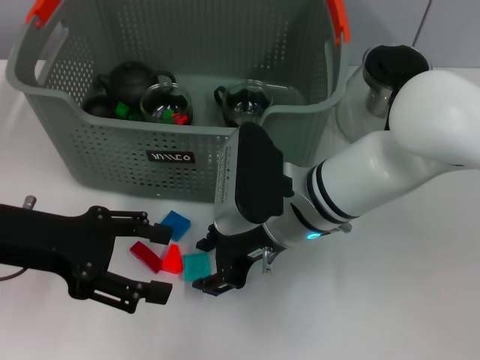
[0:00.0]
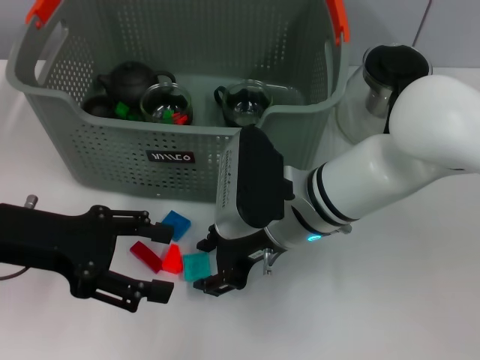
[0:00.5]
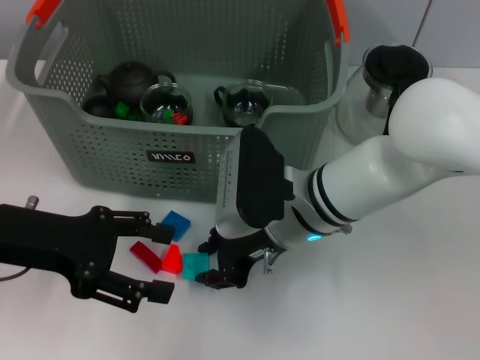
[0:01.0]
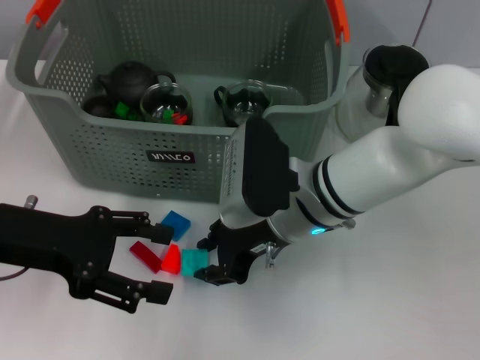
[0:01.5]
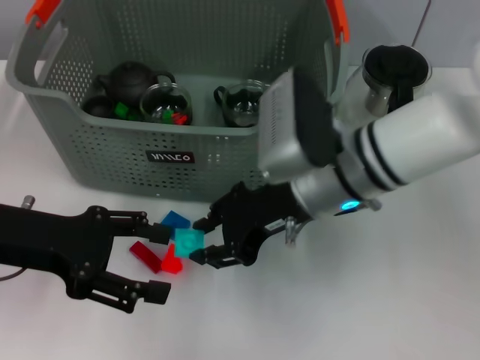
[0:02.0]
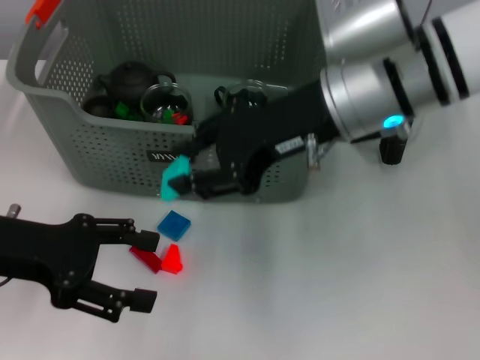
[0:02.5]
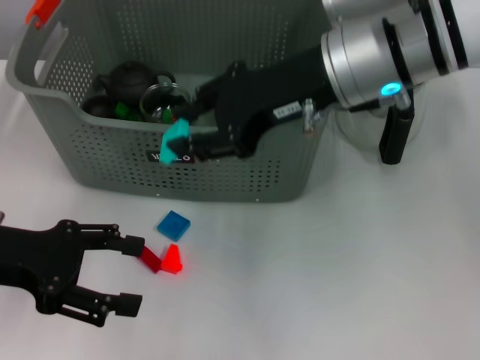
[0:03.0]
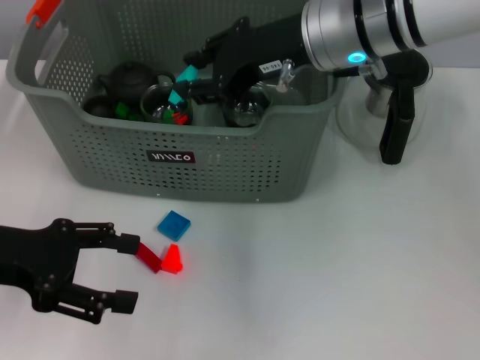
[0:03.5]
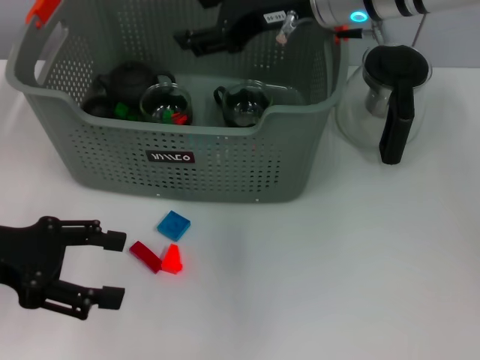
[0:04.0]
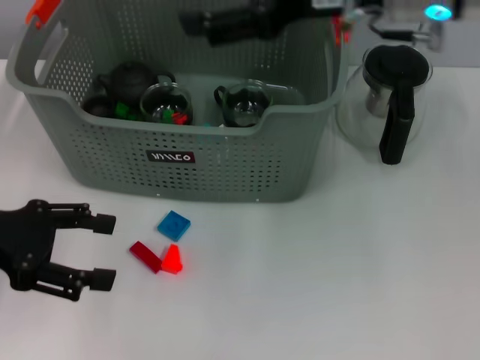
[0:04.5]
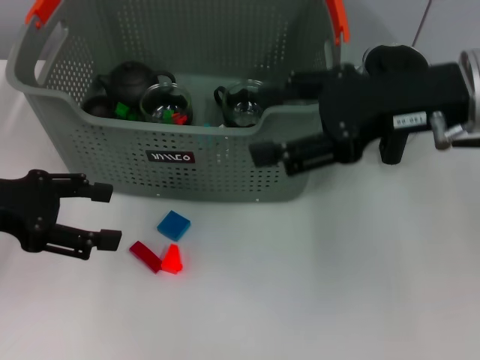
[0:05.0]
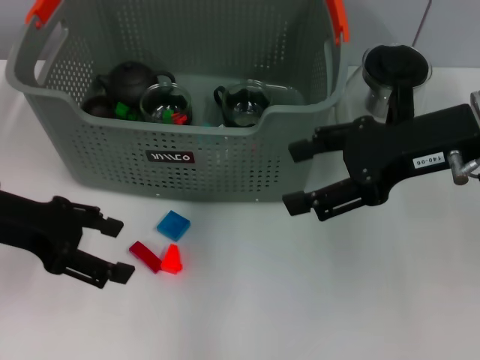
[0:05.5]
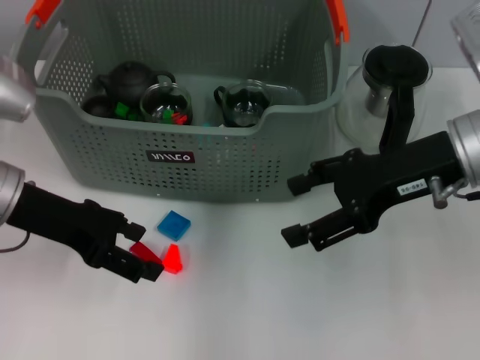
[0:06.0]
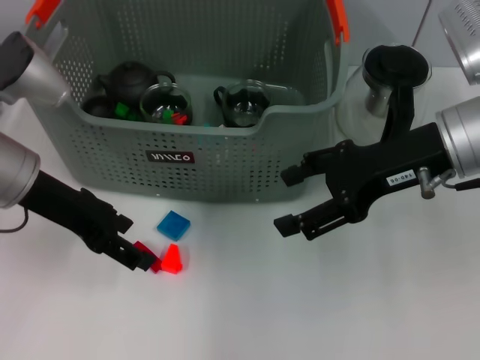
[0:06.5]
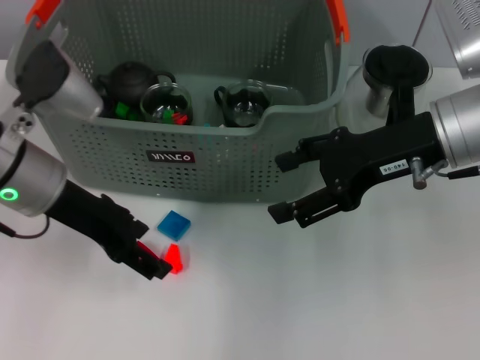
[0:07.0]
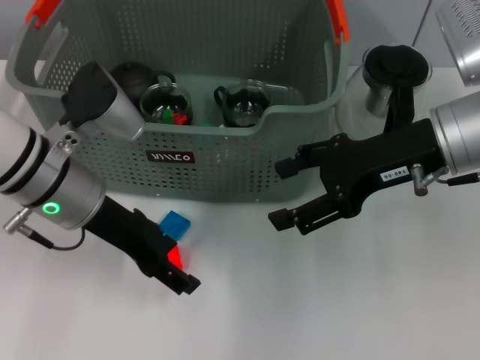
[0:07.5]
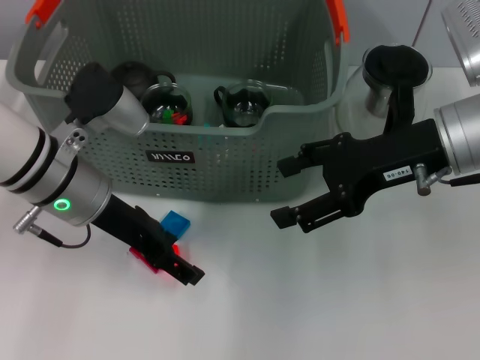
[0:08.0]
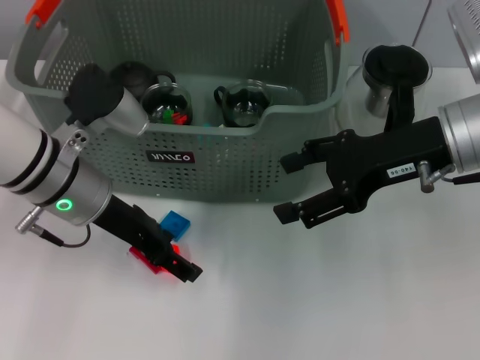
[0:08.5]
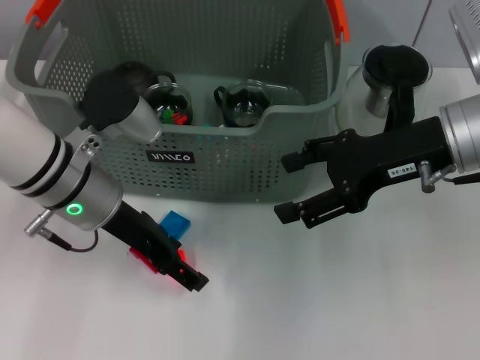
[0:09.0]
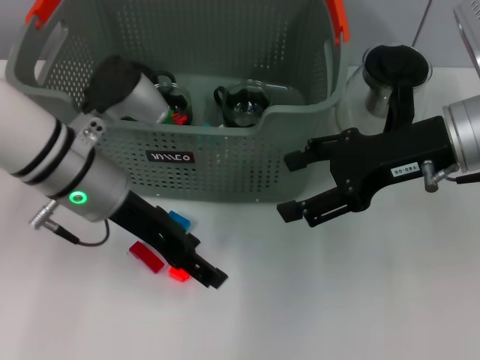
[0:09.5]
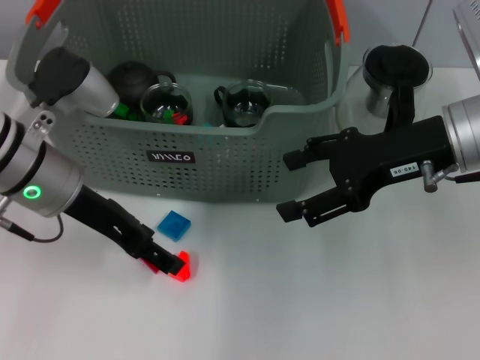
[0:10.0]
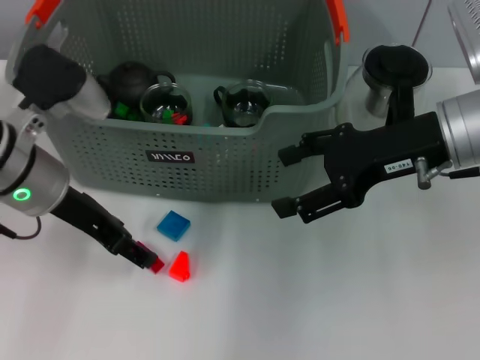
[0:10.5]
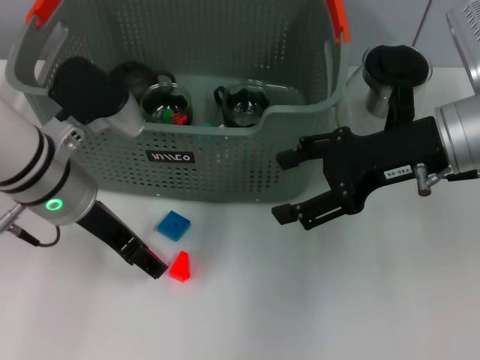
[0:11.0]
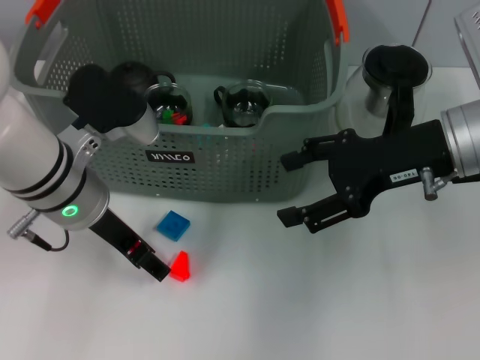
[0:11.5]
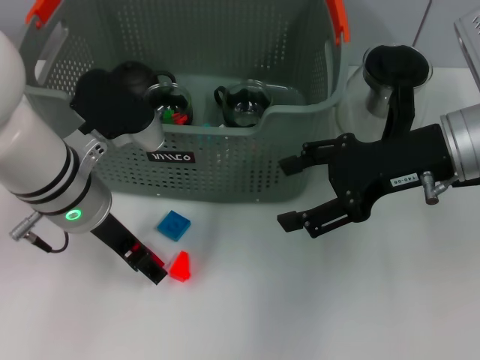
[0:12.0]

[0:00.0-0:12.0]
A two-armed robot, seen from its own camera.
Task of the whole recording: pick up the teacup on the table and place it into the storage bin, pick up the block on the table and place it into the storage bin.
Step, 0:02.0 to 0:04.0: Place the light blue block in the storage box with right gripper.
0:00.0 to 0:02.0: The right gripper ends up roughly 5 cm from where it was.
0:02.0 to 0:04.0: The right gripper heads upward and forward, covering about 15 cm.
0:04.0 to 0:06.0: The left gripper goes roughly 10 cm to the right and forward. Meanwhile the right gripper goes some 15 cm to the right, backward and downward.
0:06.0 to 0:08.0: The left gripper travels to the right by about 5 cm.
0:08.0 to 0:10.0: The grippers make only small movements.

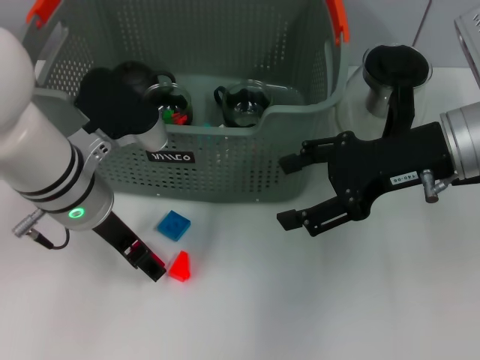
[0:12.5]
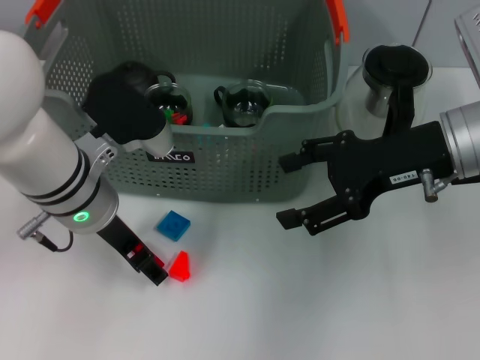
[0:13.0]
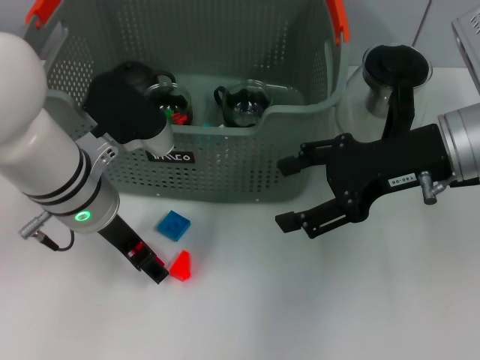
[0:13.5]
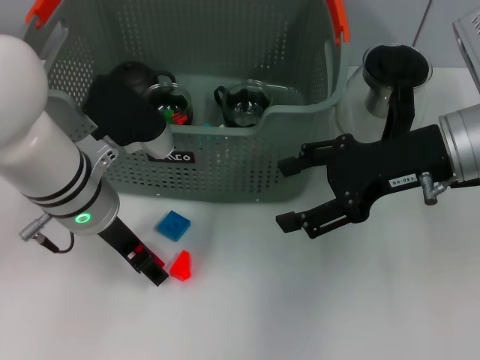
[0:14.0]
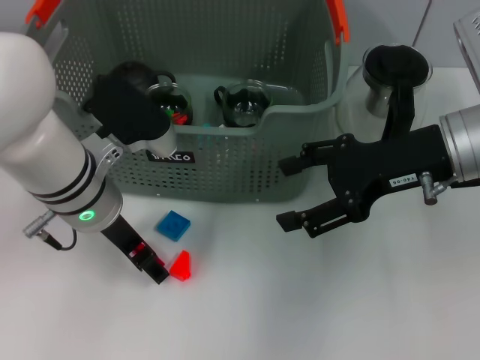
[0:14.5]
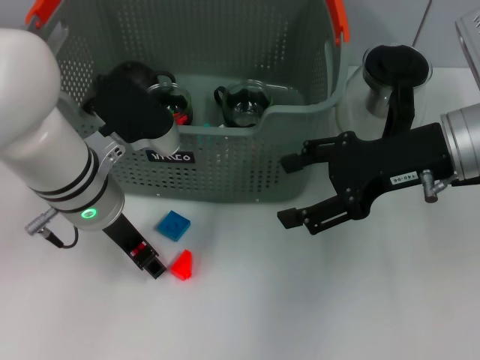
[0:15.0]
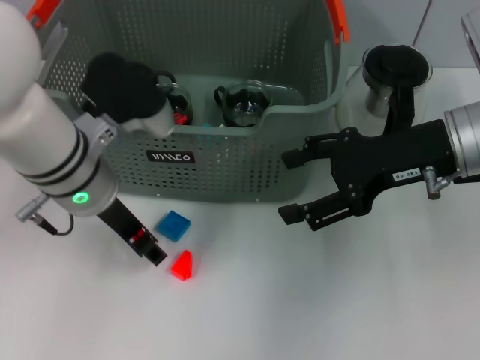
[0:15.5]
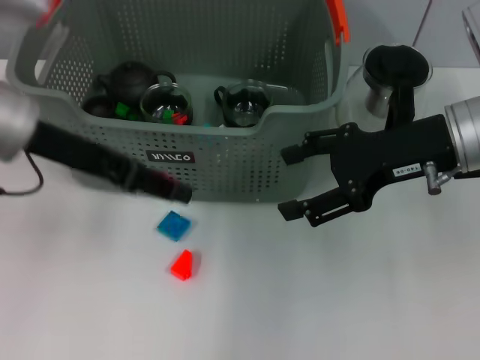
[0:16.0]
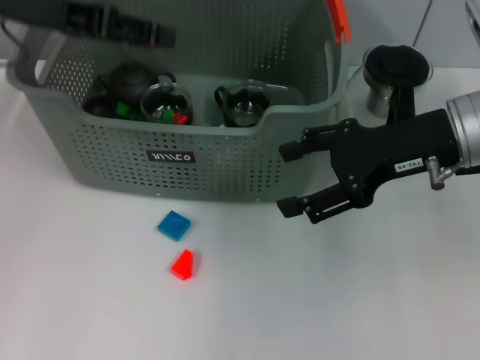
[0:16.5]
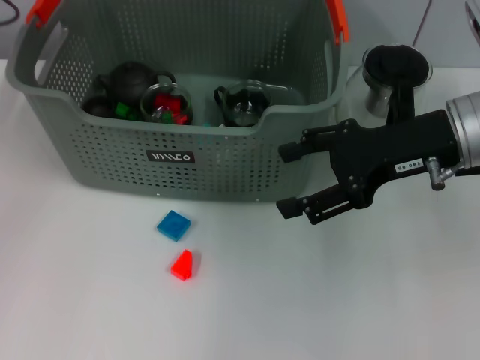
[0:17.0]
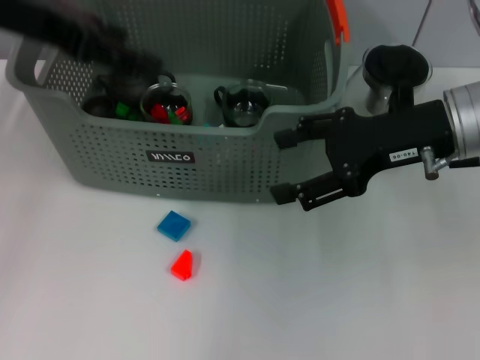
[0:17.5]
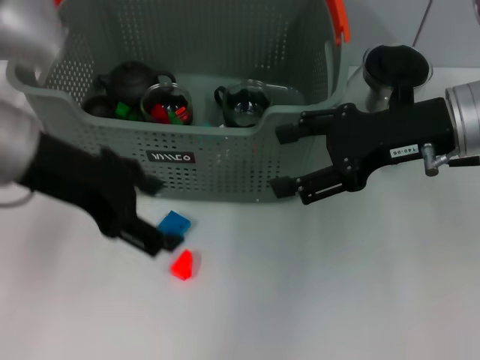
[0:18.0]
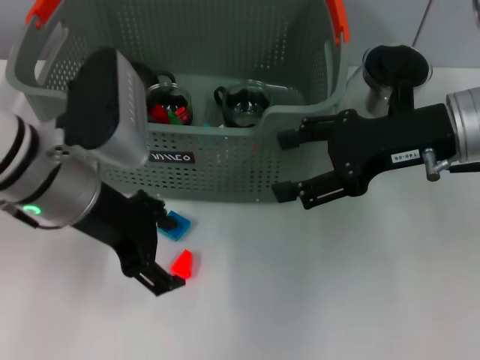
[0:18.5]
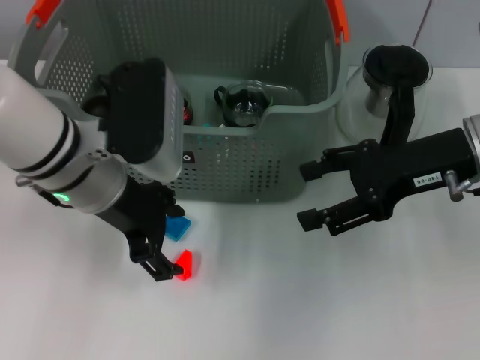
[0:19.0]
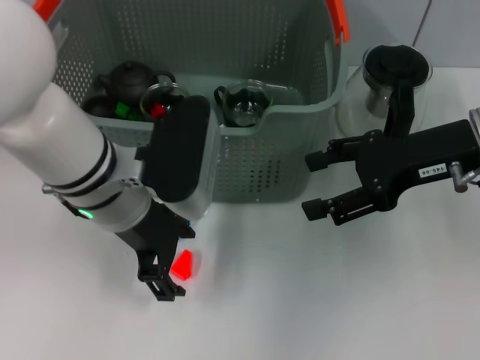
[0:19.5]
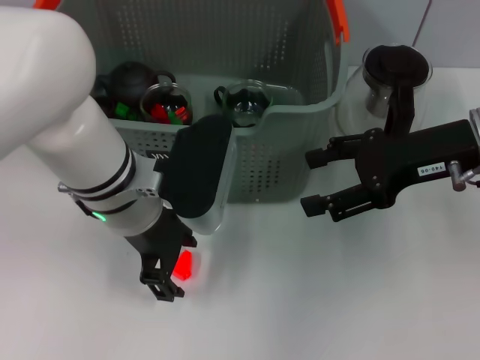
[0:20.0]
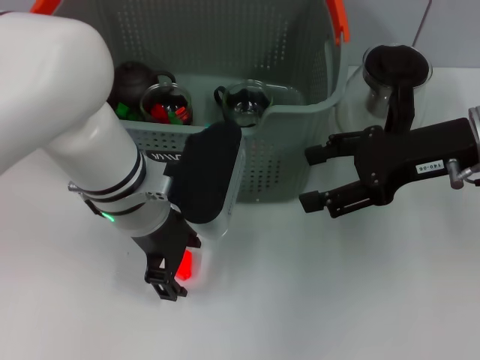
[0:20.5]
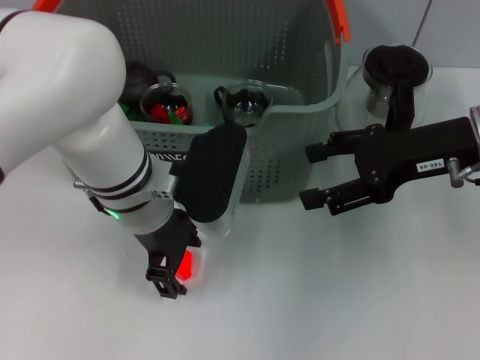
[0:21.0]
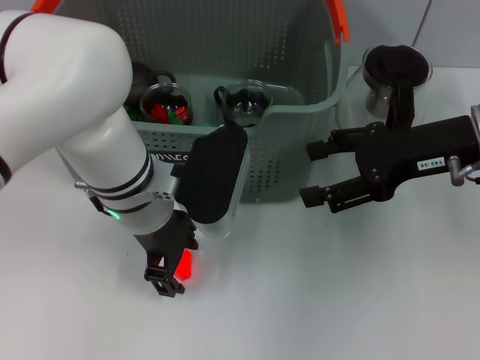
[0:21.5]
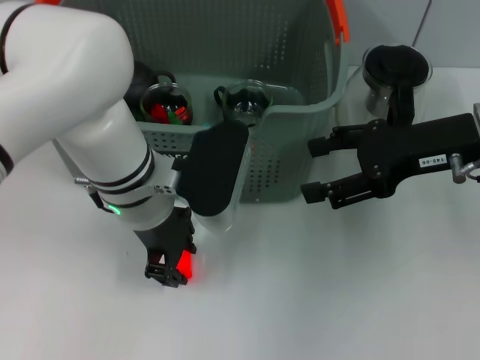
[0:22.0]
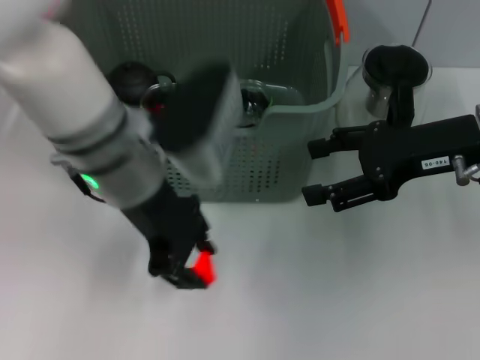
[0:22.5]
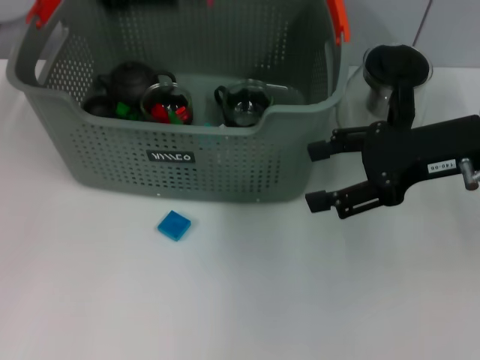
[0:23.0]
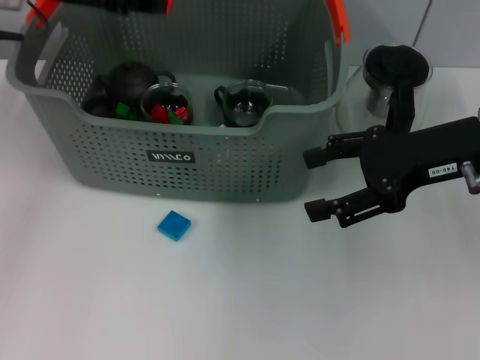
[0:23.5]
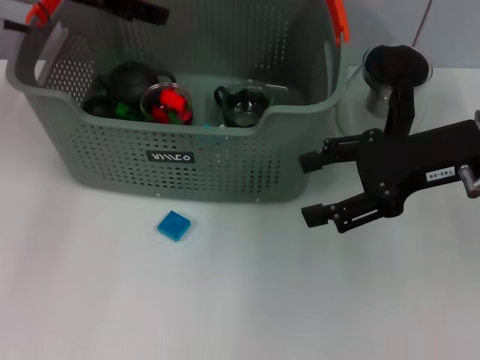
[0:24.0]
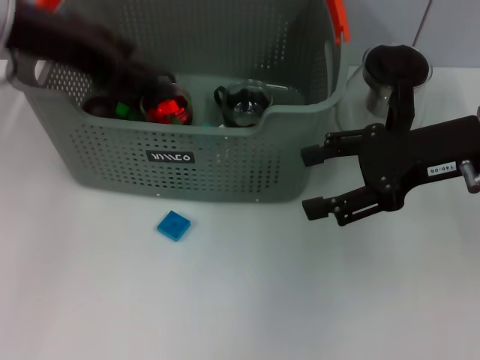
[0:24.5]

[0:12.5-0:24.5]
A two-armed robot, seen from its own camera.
Task of the whole recording: pick up the teacup on the table and place it into the storage bin, pick up the block on the table and place it into the storage bin.
Step, 0:12.5 to 0:15.5: Grasp the red block with left gripper.
Step, 0:16.0 to 0:17.0: Place the red block in the storage box with left gripper.
Step, 0:17.5 to 0:22.0: Grasp the orange block with left gripper.
Step, 0:22.5 to 0:24.0: Place the orange block in the storage box with left gripper.
0:12.5 to 0:14.5: The two grippers keep their place.
0:14.5 to 0:16.5: The left gripper moves upward, to the left and forward, some 20 cm.
0:16.5 to 0:18.5: The left gripper goes about 15 cm downward, to the right and backward.
0:18.5 to 0:20.5: The left gripper shifts some 5 cm to the right.
0:20.5 to 0:22.5: The left gripper moves upward, about 5 cm, and closes.
0:22.5 to 0:24.5: The left gripper goes roughly 15 cm to the left and upward, and opens.

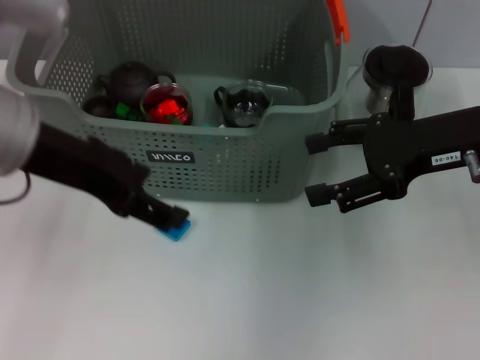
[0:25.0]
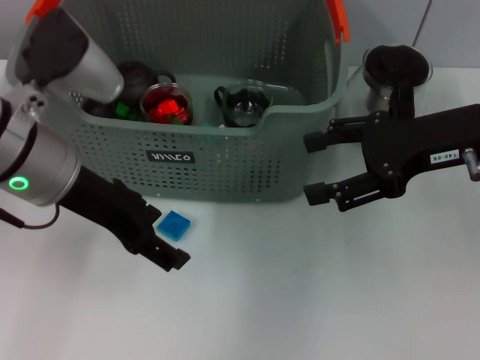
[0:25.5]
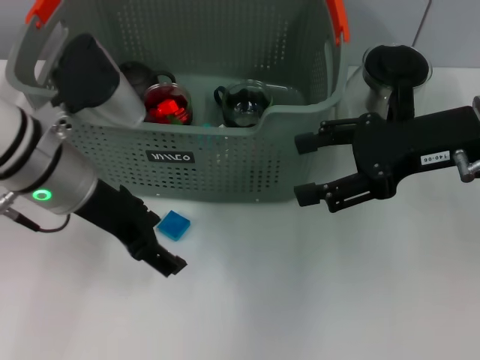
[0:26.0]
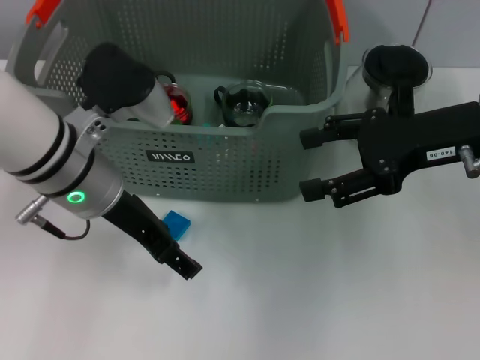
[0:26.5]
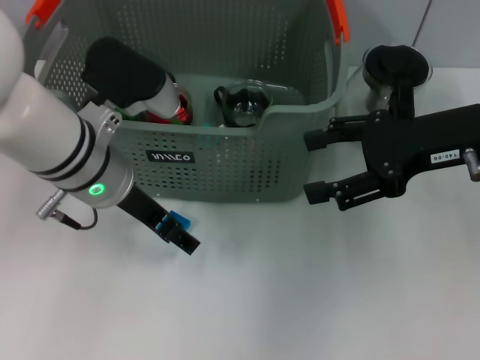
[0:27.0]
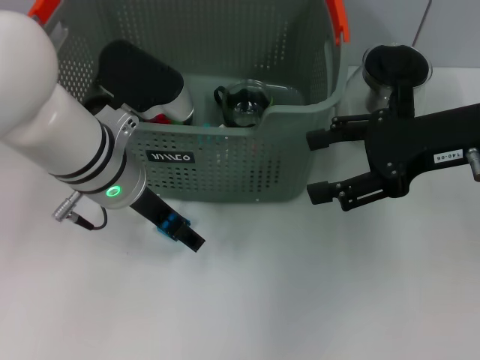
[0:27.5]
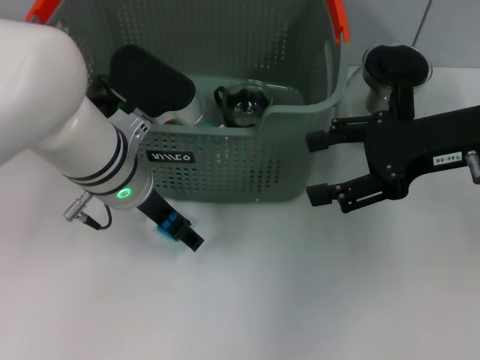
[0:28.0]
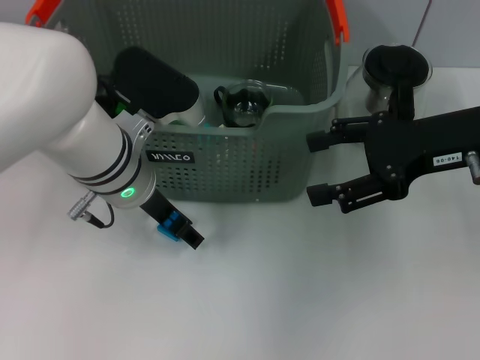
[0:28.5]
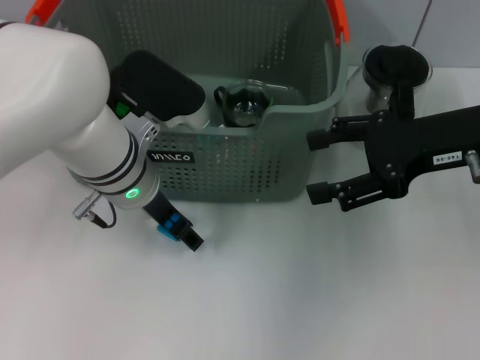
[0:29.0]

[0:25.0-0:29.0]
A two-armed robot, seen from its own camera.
Task of the whole recording: pick up the teacup on the table and place it into the storage bin, pick up the block on the table and place it into the storage bin.
0:25.0 to 0:27.0: The left gripper heads downward, covering about 10 cm.
0:27.0 to 0:29.0: The grippers move only a little.
